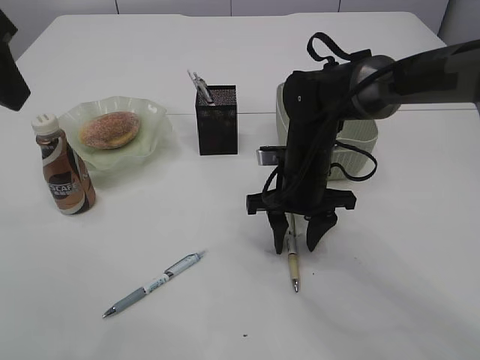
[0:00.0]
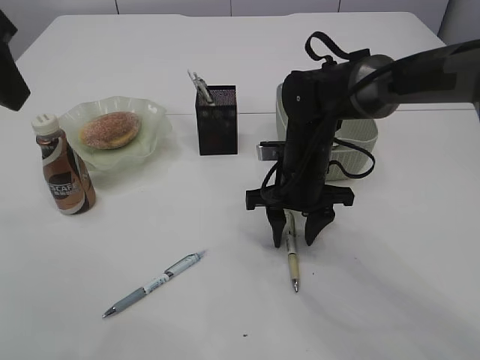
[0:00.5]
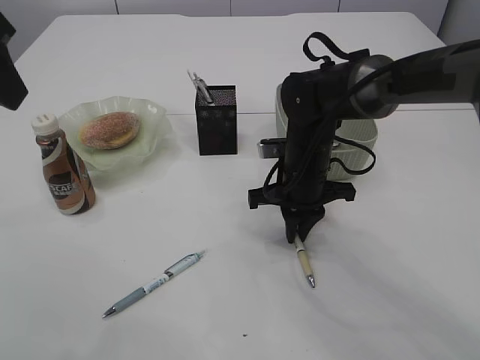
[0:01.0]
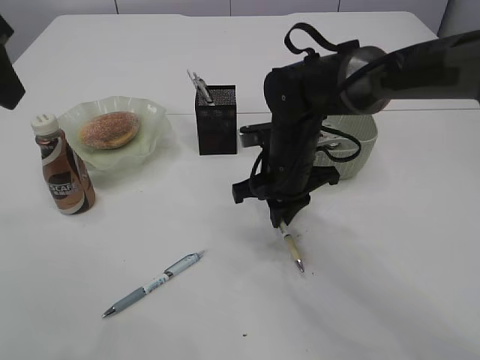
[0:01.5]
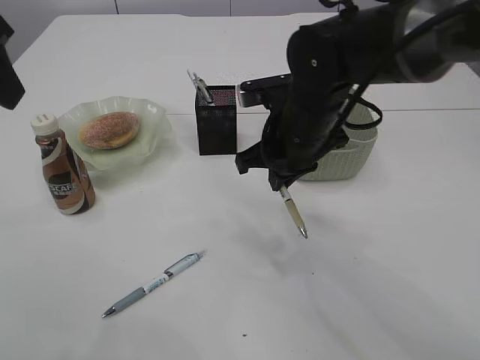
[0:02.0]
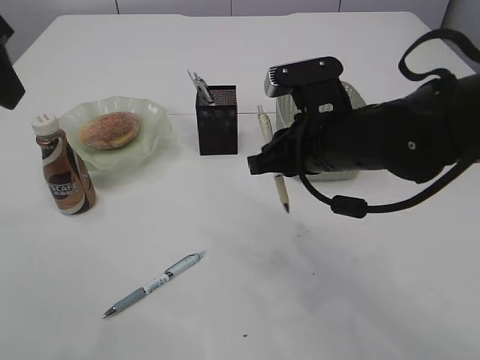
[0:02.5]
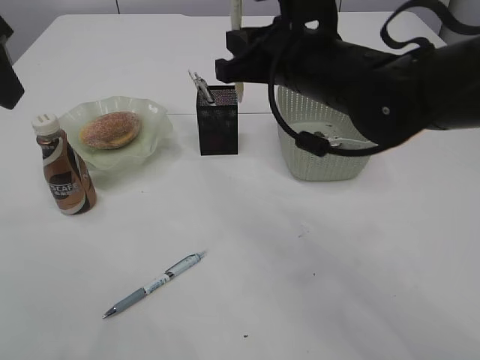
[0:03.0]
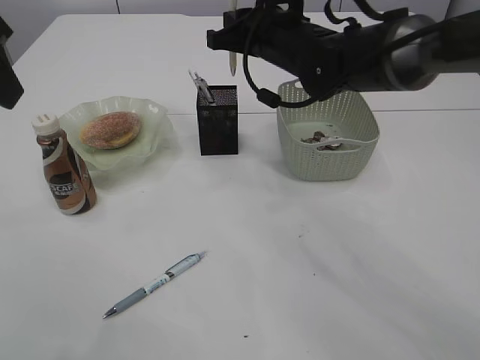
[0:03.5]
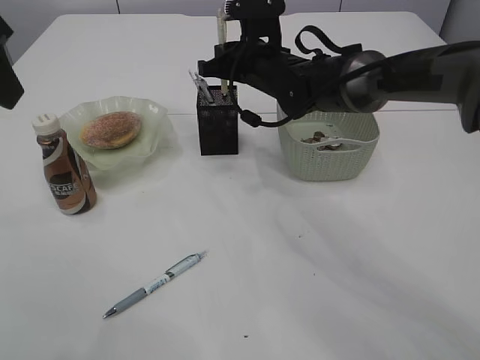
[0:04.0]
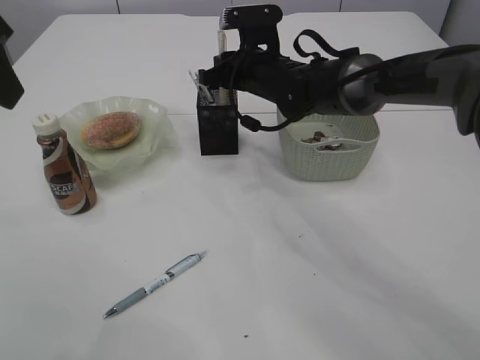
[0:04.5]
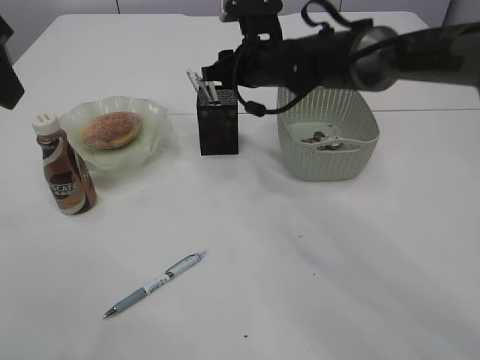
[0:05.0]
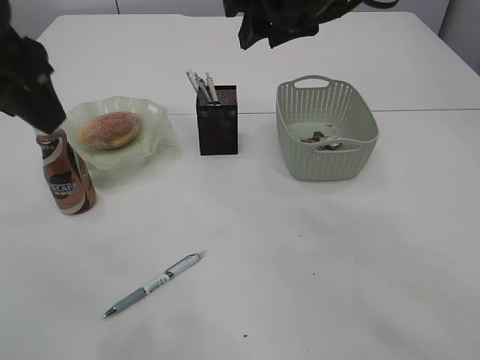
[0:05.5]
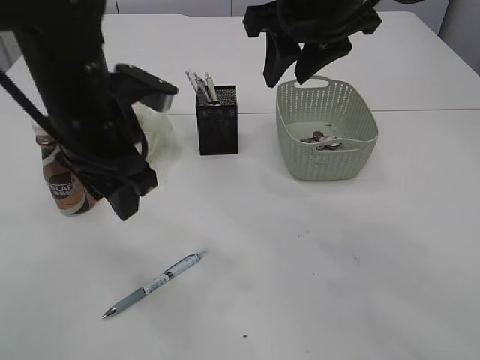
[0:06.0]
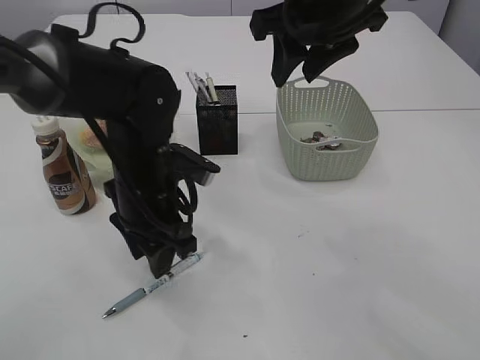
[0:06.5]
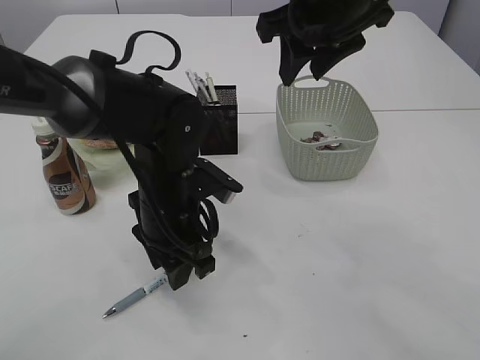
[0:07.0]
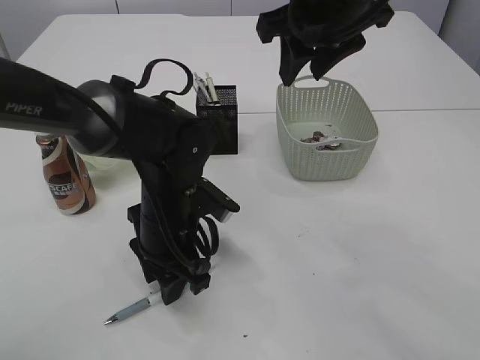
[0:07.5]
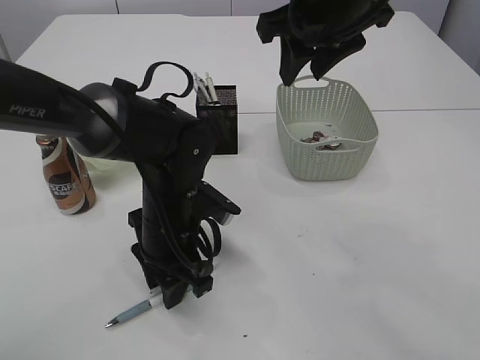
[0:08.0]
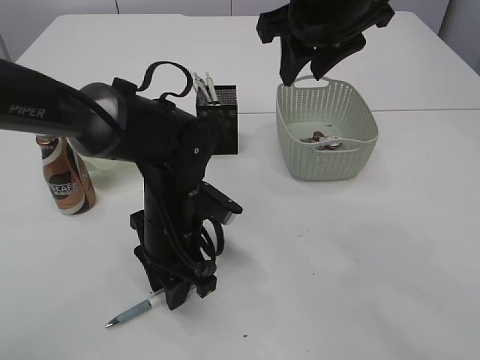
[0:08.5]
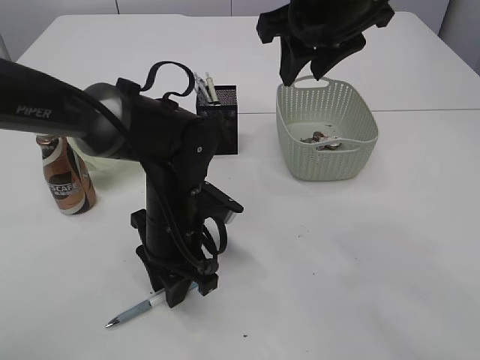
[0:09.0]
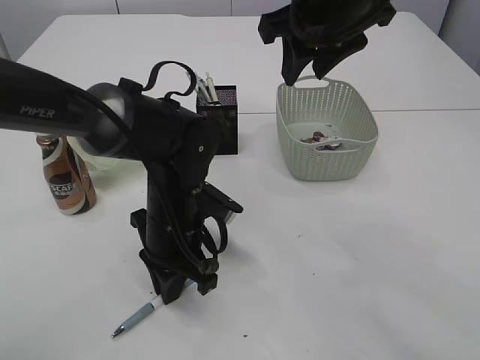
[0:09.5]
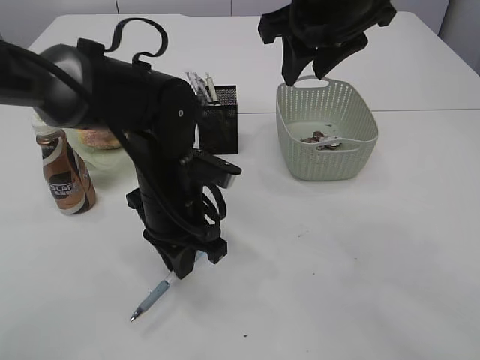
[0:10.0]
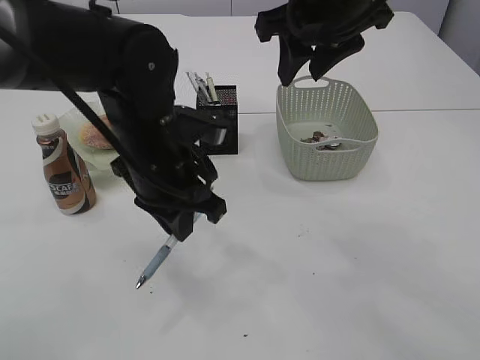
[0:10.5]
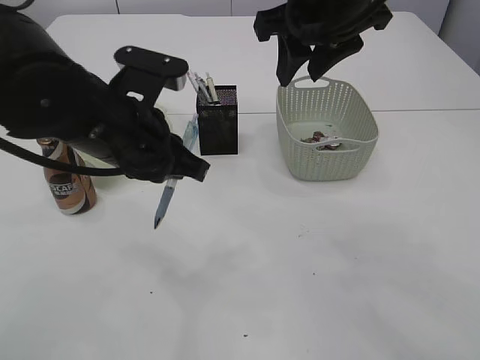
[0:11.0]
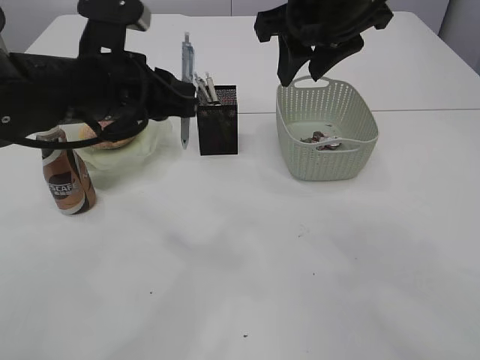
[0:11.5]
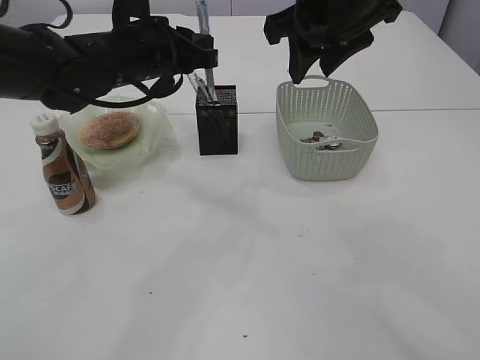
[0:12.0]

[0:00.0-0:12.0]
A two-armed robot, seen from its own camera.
Step, 0:00.0 to 0:02.0: Pick up the pen with right arm.
Step, 0:02.5 to 0:05.0: Place the pen into the pen holder.
Step, 0:05.5 to 0:10.5: Pick up the pen with left arm.
0:00.0 to 0:02.0: The right gripper goes some 10 cm upward, and closes up.
0:02.0 to 0:04.0: The right gripper is displaced forward by some 10 cm.
0:04.0 to 0:06.0: The right gripper heads upward and backward, covering some 20 cm, and opens. The left gripper moves downward, to the right and forward, approximately 15 cm.
0:06.0 to 0:08.0: The left gripper travels downward by roughly 15 cm.
0:08.0 to 0:10.0: The left gripper closes.
0:10.0 to 0:12.0: The left gripper heads forward and upward, covering approximately 15 cm.

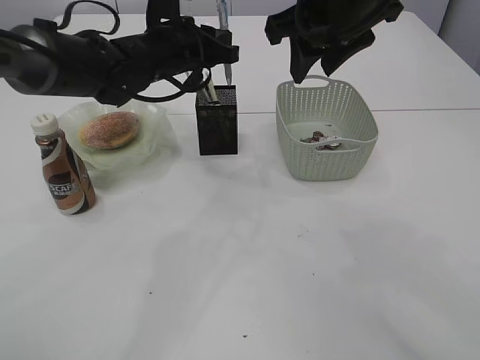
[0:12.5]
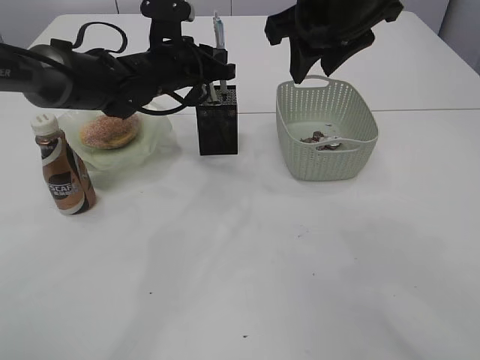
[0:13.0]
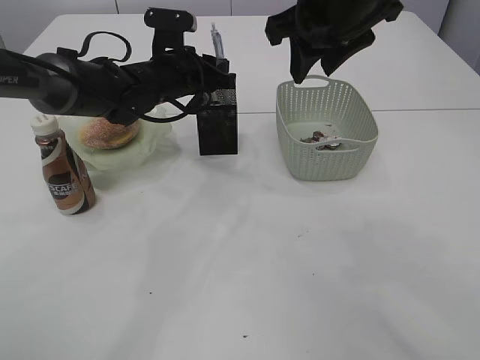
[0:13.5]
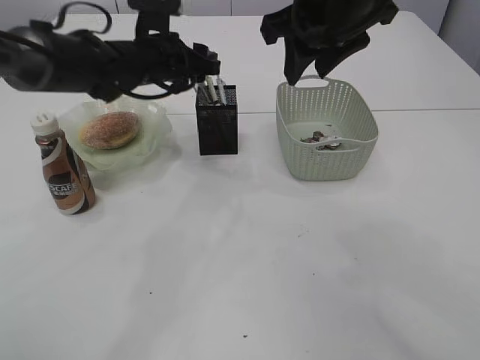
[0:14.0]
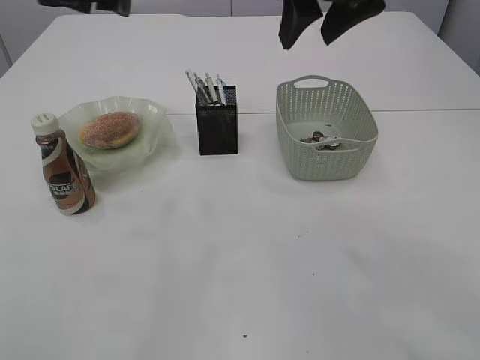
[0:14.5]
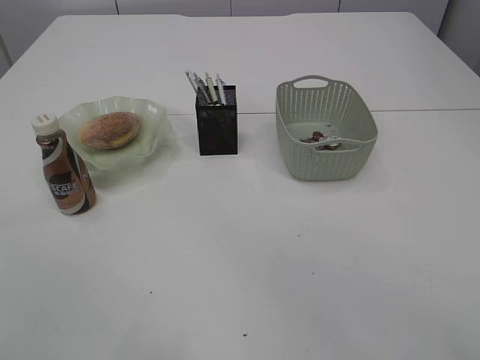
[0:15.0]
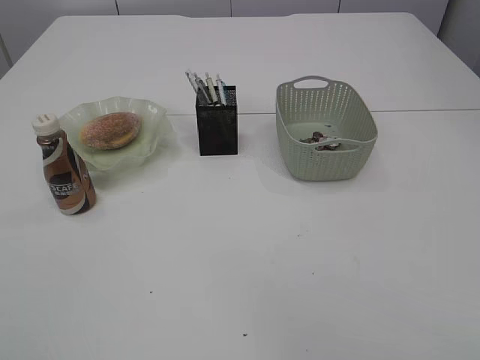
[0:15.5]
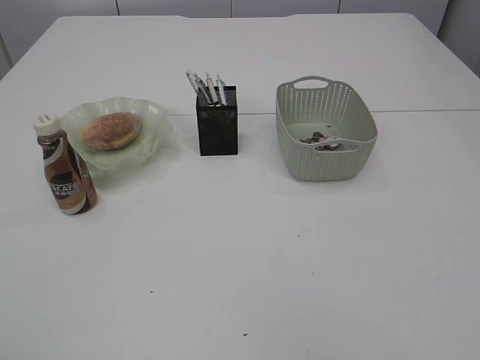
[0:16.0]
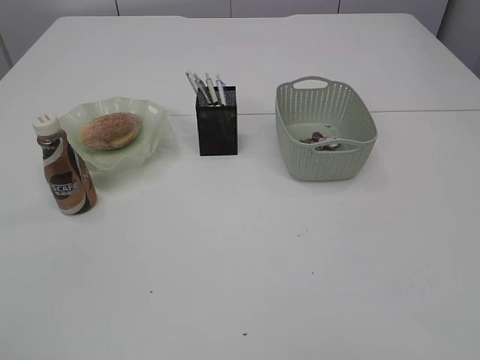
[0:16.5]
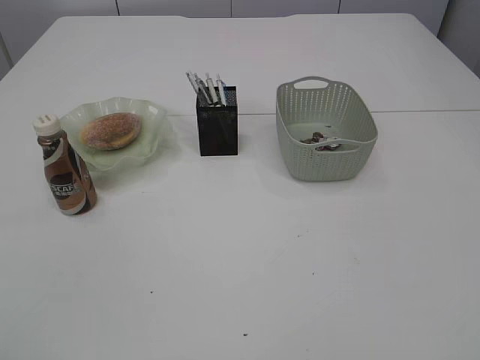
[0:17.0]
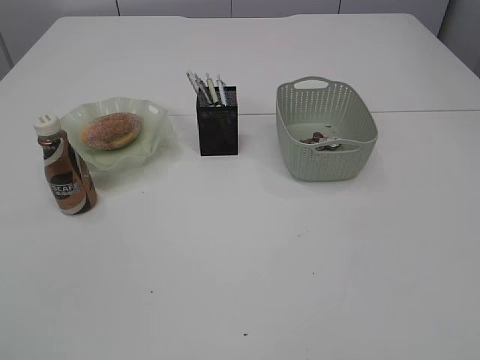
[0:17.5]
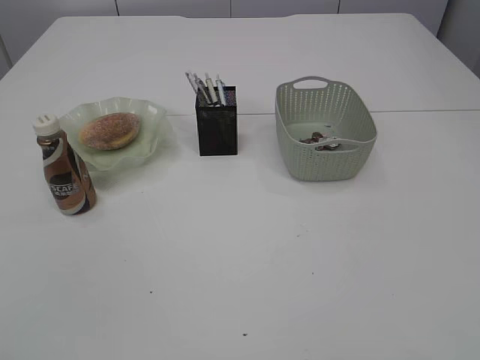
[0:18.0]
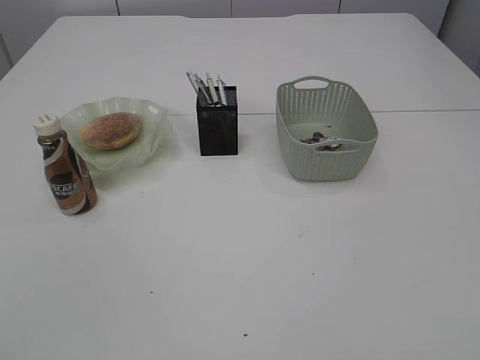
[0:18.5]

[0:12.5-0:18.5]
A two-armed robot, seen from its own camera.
0:12.5 to 0:14.5: The left gripper travels upward, to the left and backward by approximately 15 cm, and opens its fingers.
0:14.5 to 0:16.5: The right gripper goes approximately 40 cm backward and to the right. The left gripper goes about 40 cm backward.

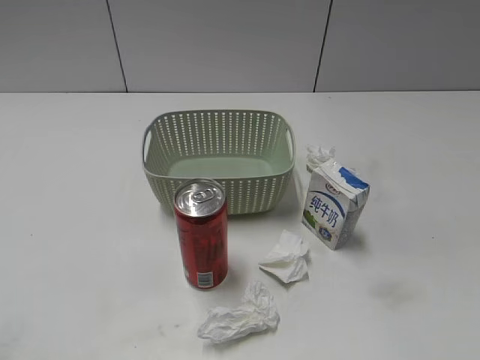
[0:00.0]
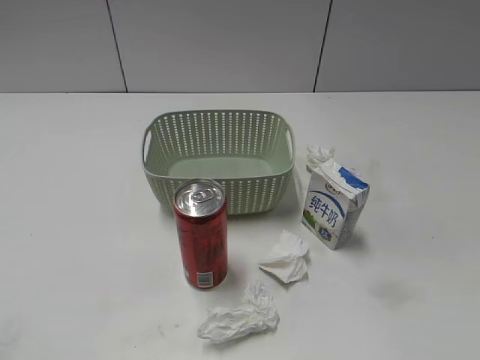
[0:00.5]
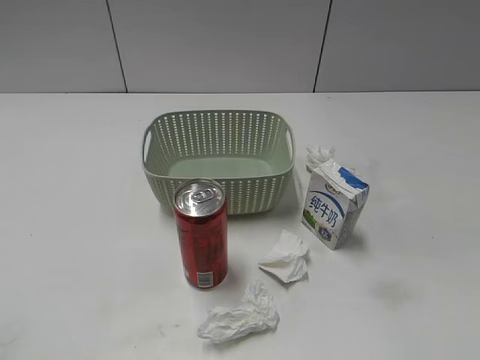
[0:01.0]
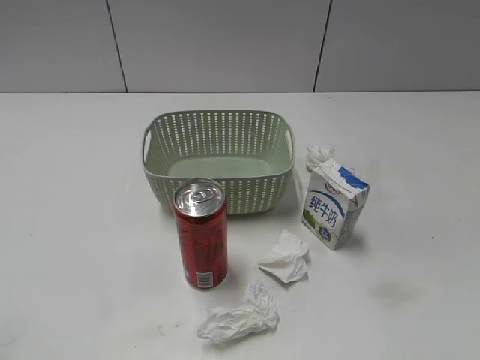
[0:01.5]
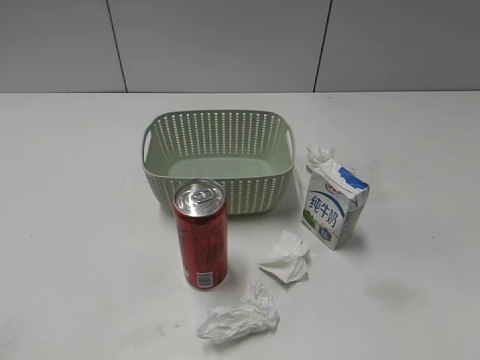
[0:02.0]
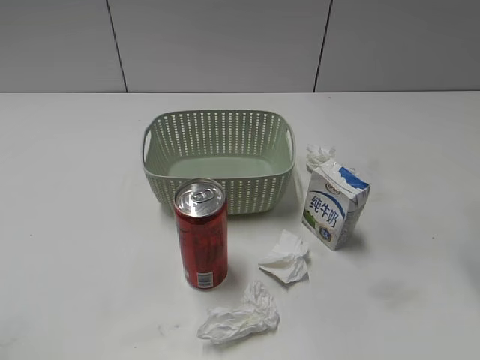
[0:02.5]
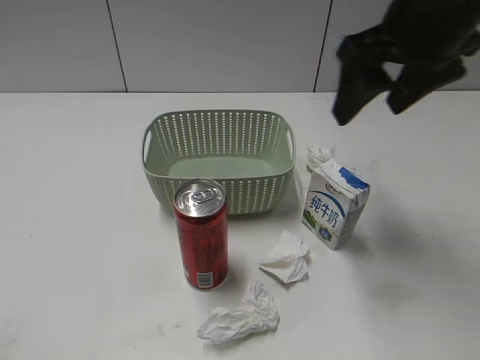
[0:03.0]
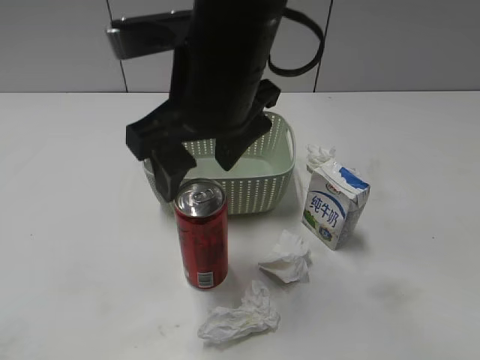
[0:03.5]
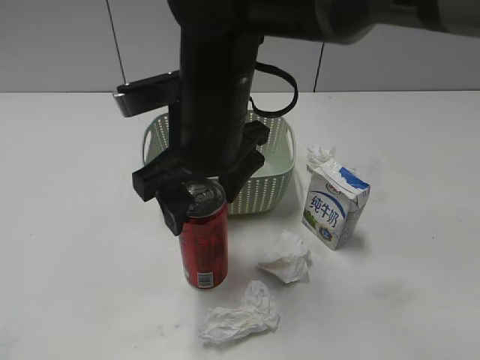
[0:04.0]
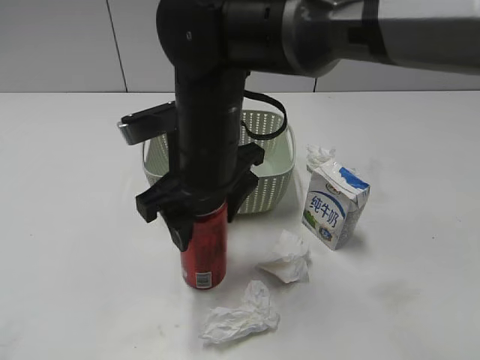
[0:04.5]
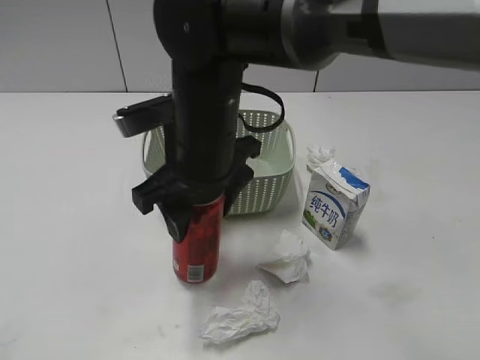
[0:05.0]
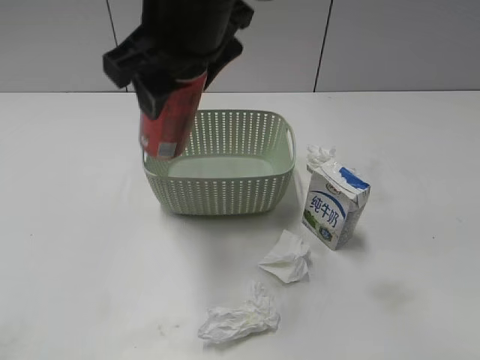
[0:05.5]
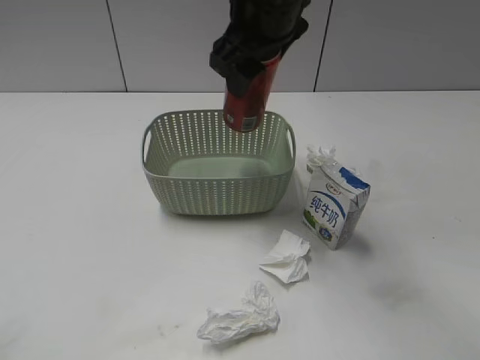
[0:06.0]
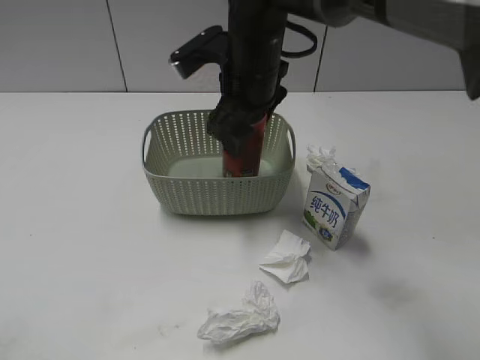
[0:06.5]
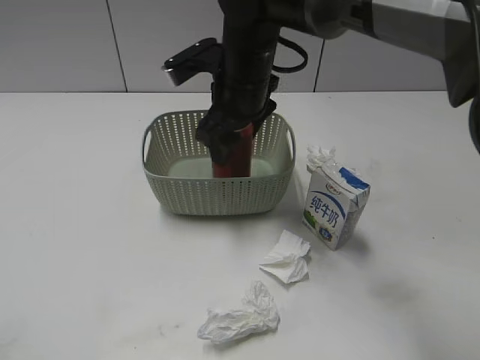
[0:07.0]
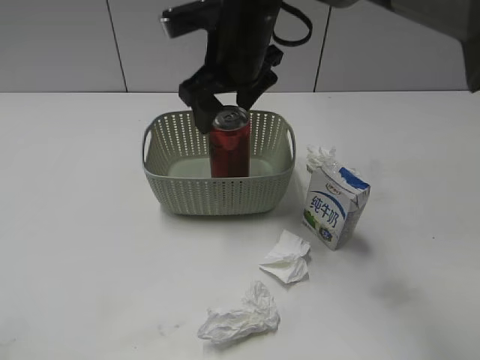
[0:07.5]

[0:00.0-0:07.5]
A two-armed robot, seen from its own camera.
Step, 0:03.0 to 0:04.5: Grasp the cola can with right gripper.
0:02.0 to 0:04.0: The right gripper travels to the left by some 30 cm.
0:04.0 to 0:05.5: The right gripper goes approximately 10 cm upward, and closes up.
0:05.5 to 0:07.5: The right gripper moves forward and downward, approximately 15 cm, and opens its fingers.
